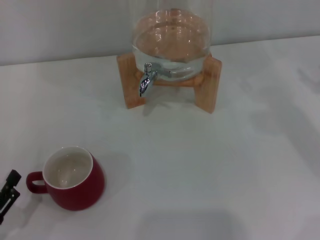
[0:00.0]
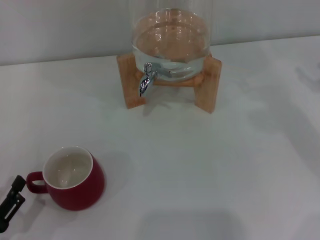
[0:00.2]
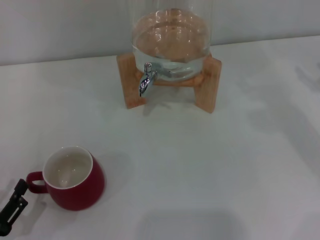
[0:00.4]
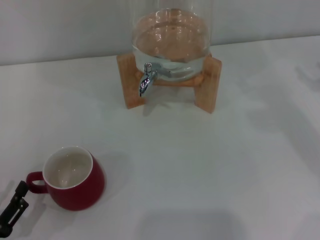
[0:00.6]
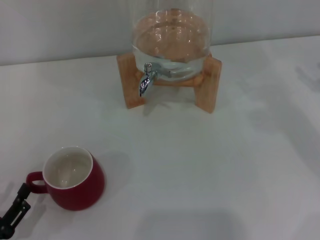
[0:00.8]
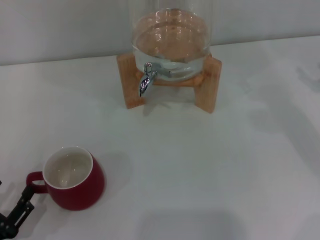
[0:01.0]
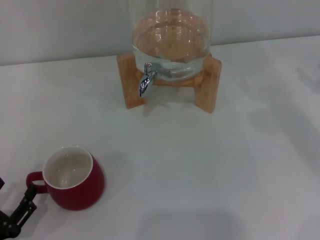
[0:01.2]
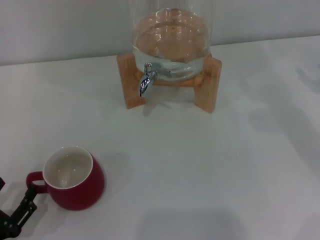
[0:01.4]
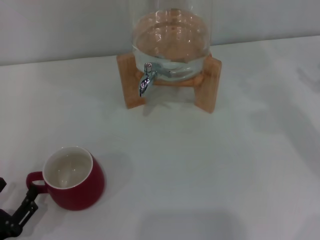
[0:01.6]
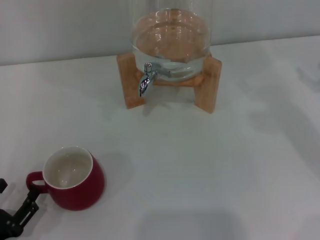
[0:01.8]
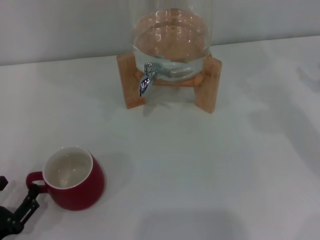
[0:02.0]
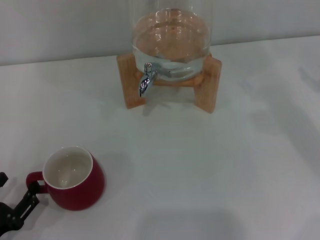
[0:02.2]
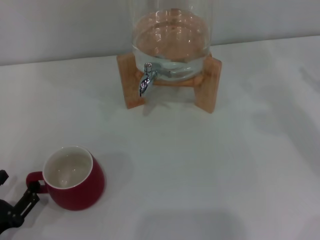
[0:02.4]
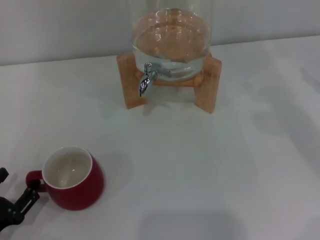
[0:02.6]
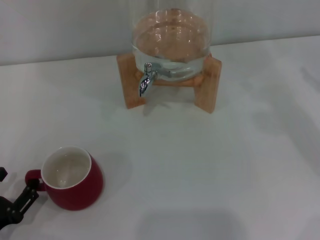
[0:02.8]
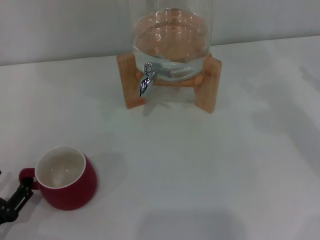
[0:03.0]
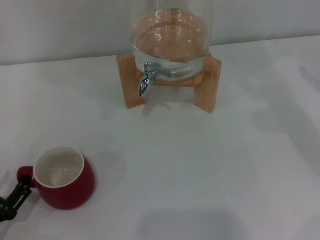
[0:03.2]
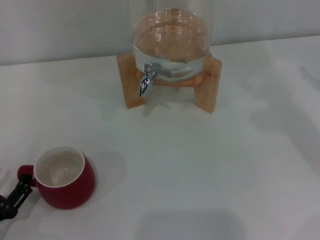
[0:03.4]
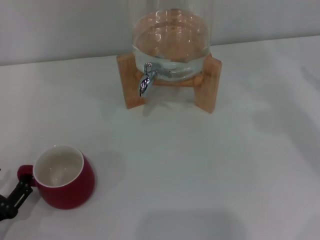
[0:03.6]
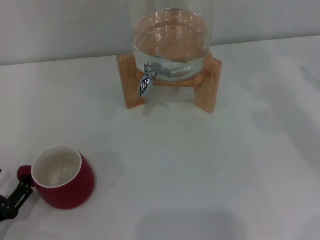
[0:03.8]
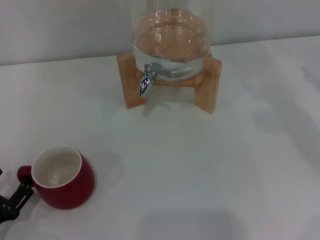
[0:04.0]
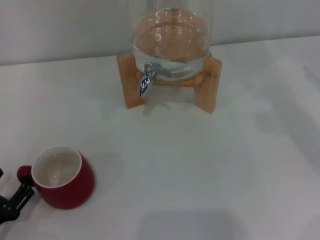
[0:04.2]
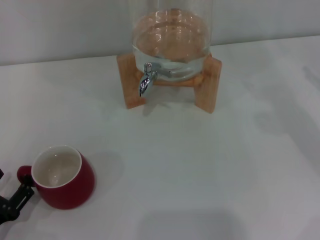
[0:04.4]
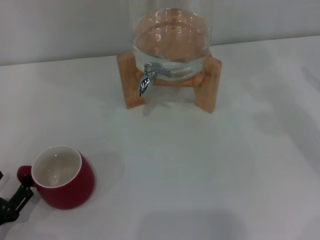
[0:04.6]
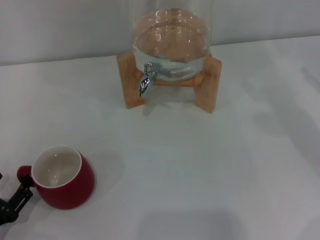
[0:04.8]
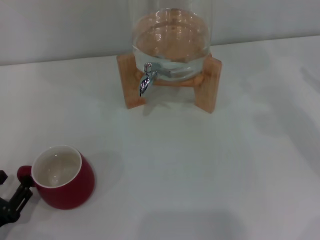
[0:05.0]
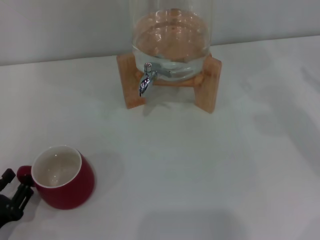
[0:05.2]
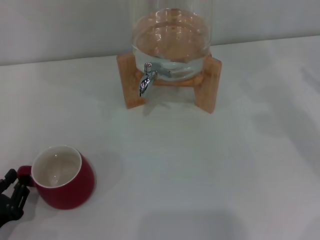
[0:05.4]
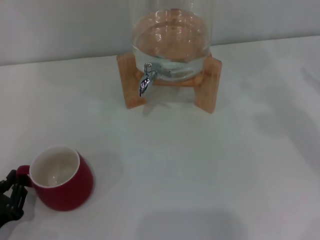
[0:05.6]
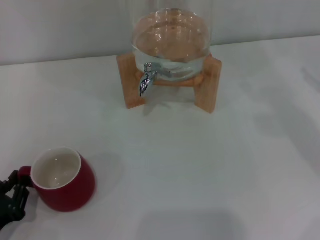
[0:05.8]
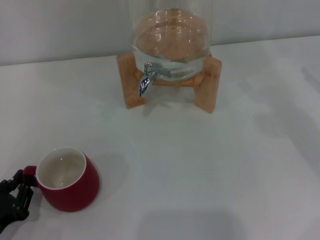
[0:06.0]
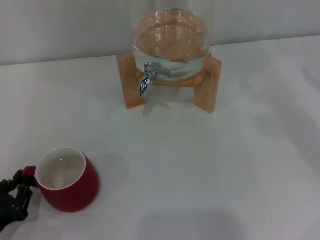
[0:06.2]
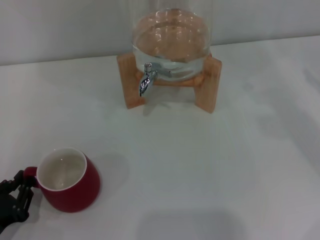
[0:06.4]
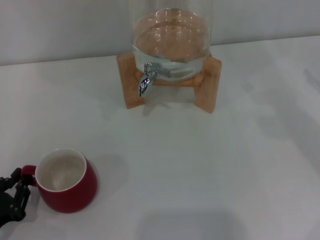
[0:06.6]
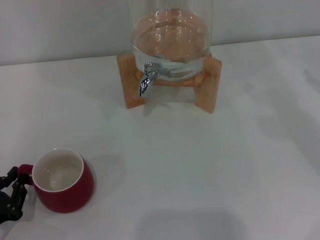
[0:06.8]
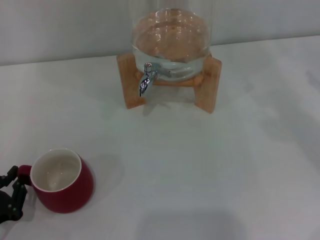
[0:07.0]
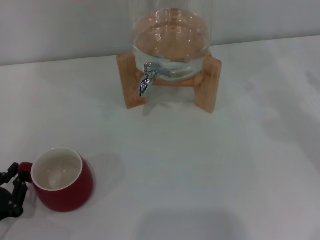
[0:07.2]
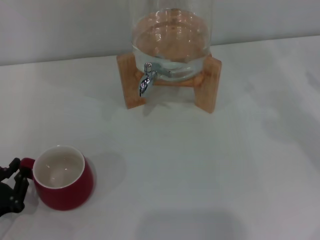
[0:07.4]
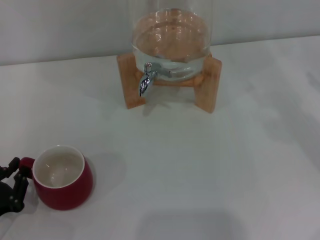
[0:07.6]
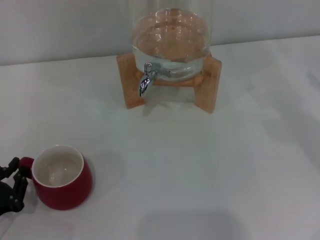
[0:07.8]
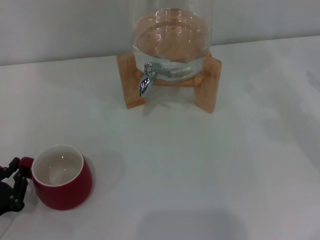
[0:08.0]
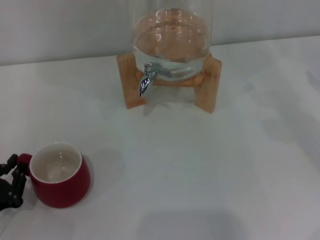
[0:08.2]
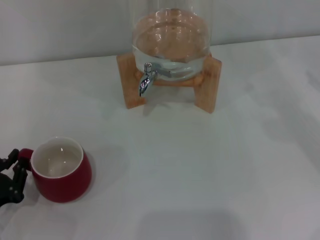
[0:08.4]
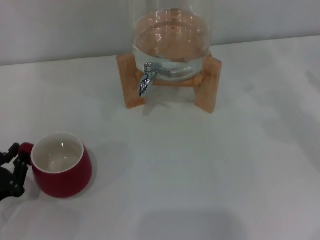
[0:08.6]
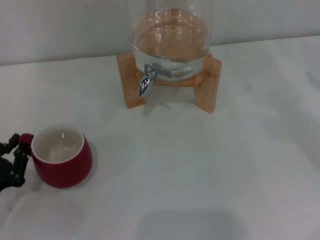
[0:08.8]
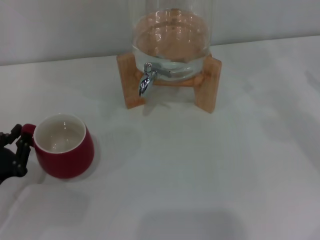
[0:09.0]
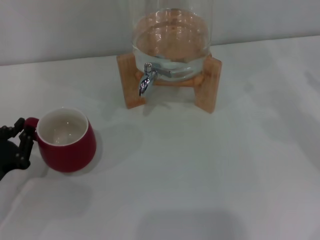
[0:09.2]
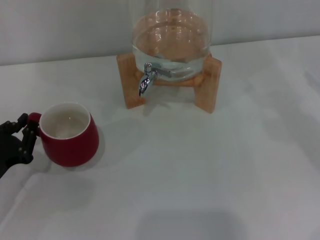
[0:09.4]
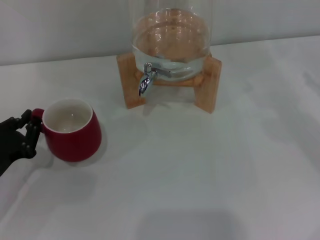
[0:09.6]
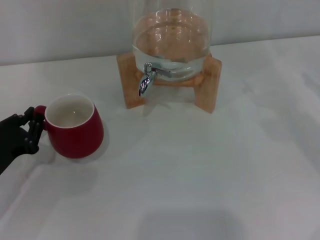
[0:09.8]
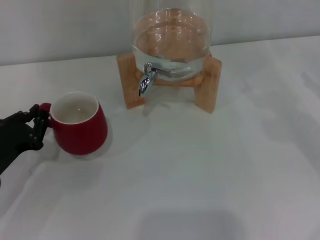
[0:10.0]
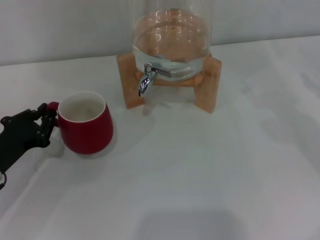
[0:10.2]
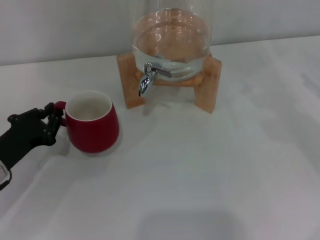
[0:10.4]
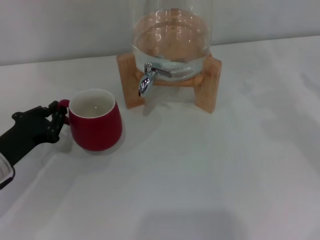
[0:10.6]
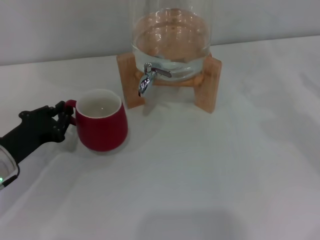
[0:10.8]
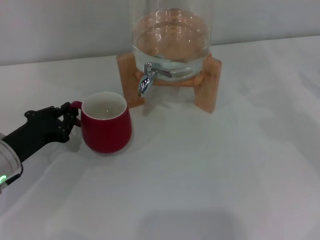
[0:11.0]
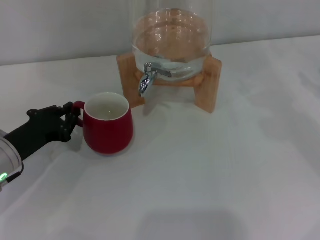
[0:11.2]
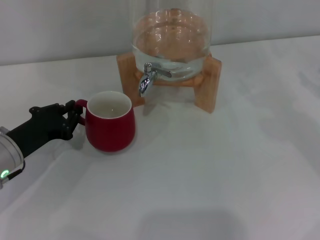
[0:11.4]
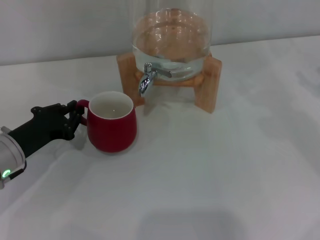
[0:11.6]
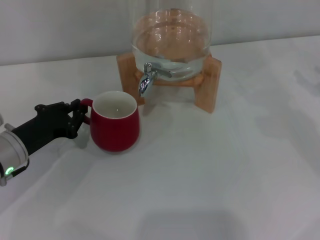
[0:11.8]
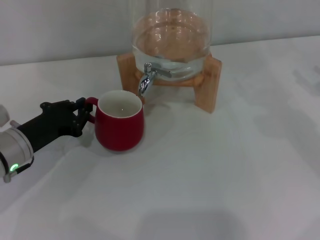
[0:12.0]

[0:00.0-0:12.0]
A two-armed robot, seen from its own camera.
Task of the whole recording: the left gripper pick up the red cup and place it horizontally under the faucet, the right gripper turn on the faucet to fill the cup, and then turn off the faucet.
0:00.0 to 0:03.0: There are only small adjustments of the grippers.
0:03.0 to 0:04.4: The two grippers keep their place.
0:04.4 to 0:06.0: The left gripper closes.
0:06.0 to 0:07.6: There are only small adjustments of the grippers.
0:07.6 to 0:09.0: There are only small adjustments of the grippers.
0:09.0 to 0:10.4: The left gripper shifts about 5 cm forward.
0:10.4 to 0:12.0: There are only small adjustments of the grippers.

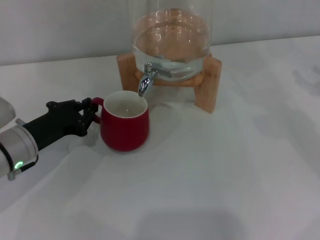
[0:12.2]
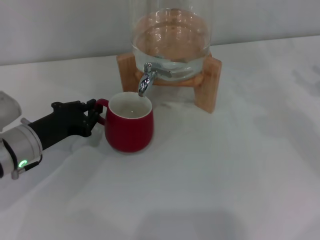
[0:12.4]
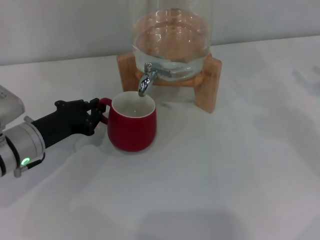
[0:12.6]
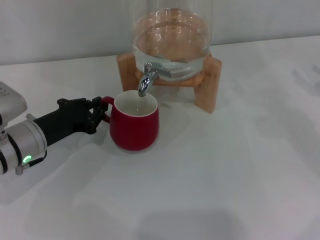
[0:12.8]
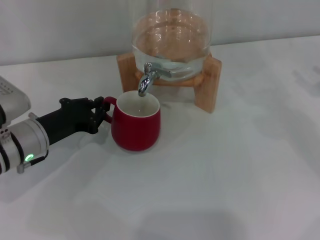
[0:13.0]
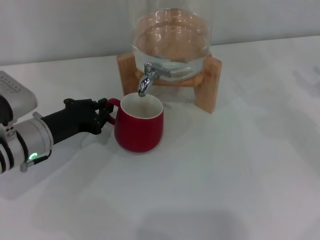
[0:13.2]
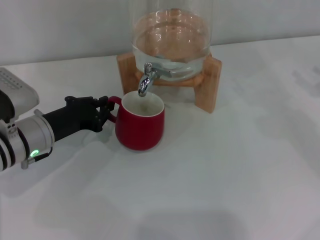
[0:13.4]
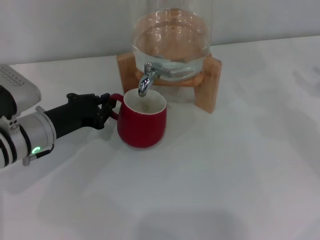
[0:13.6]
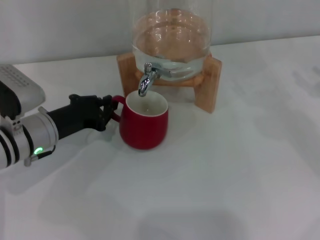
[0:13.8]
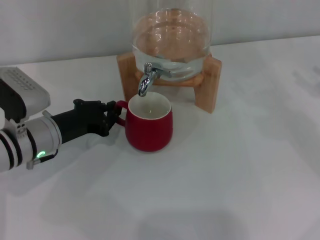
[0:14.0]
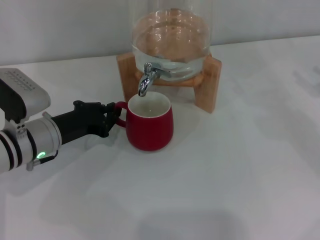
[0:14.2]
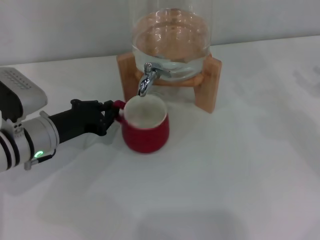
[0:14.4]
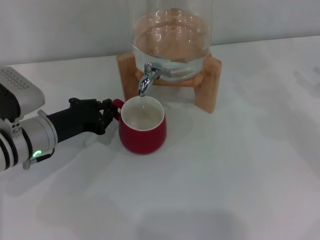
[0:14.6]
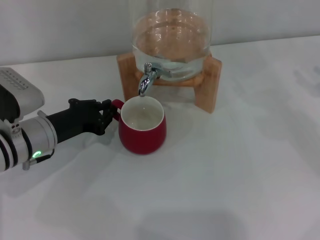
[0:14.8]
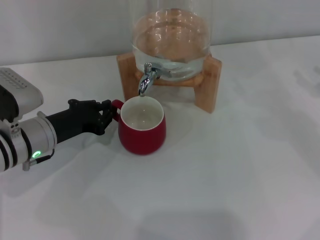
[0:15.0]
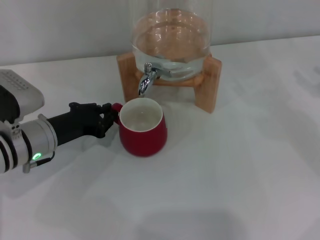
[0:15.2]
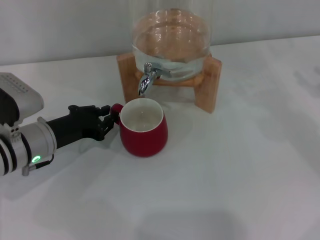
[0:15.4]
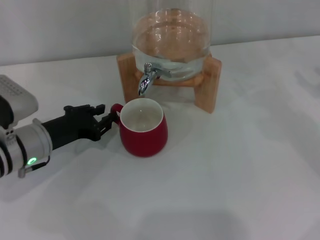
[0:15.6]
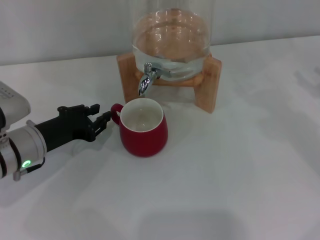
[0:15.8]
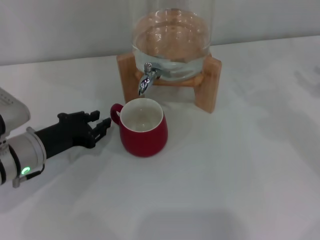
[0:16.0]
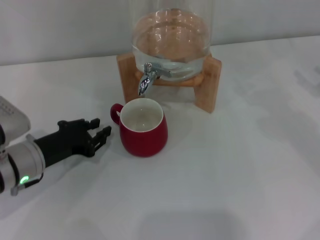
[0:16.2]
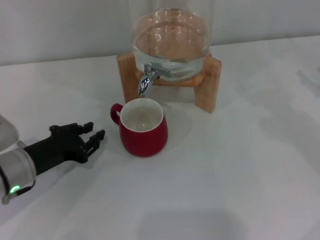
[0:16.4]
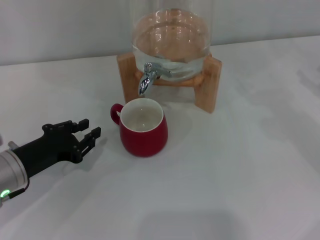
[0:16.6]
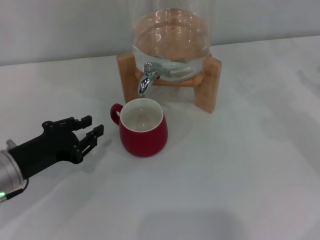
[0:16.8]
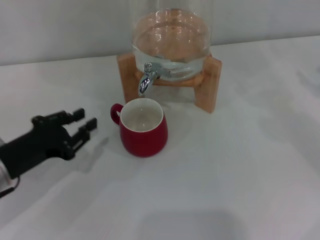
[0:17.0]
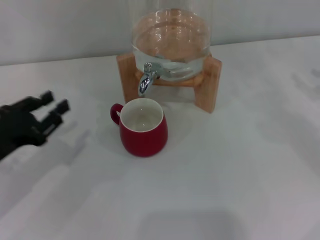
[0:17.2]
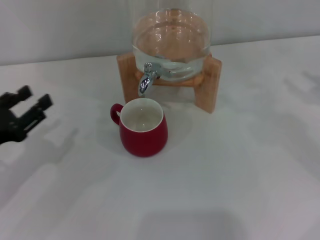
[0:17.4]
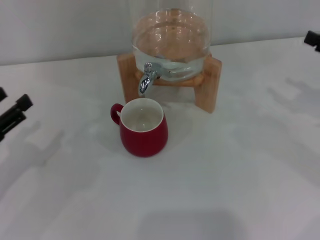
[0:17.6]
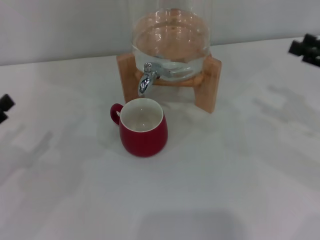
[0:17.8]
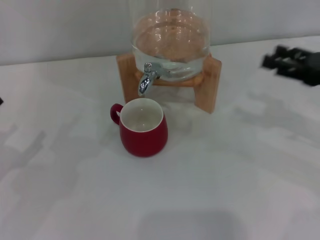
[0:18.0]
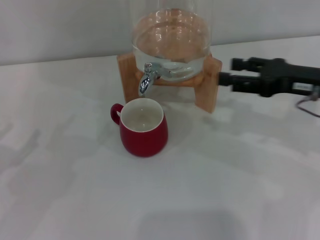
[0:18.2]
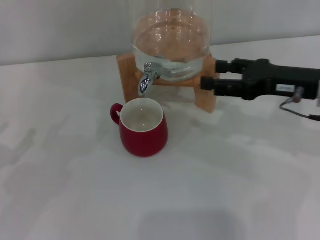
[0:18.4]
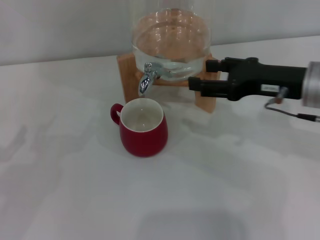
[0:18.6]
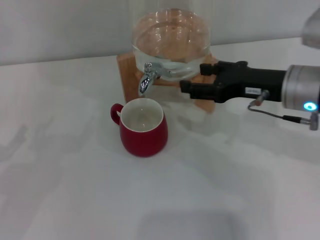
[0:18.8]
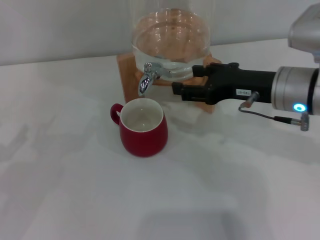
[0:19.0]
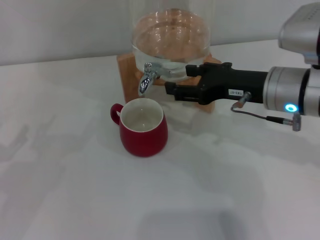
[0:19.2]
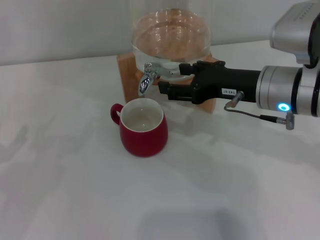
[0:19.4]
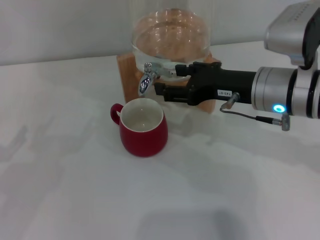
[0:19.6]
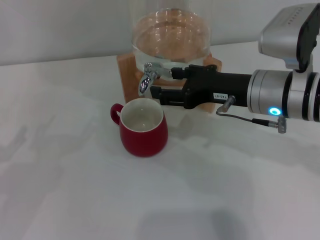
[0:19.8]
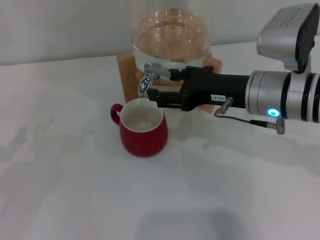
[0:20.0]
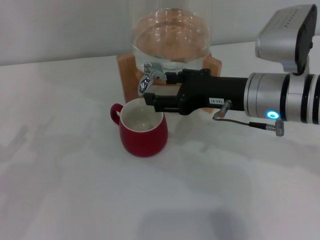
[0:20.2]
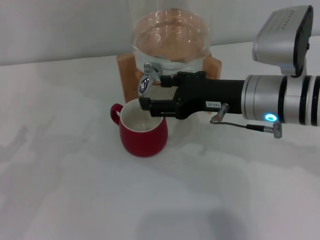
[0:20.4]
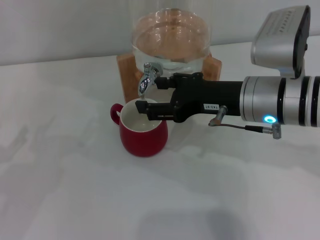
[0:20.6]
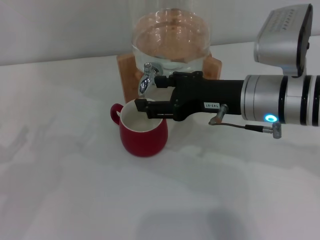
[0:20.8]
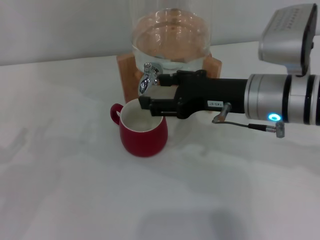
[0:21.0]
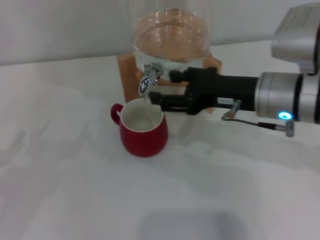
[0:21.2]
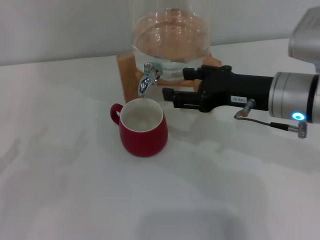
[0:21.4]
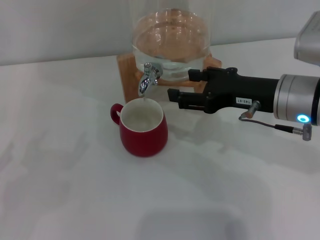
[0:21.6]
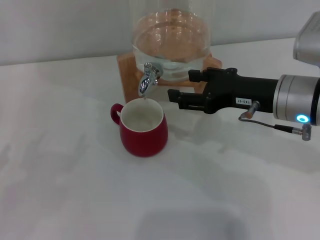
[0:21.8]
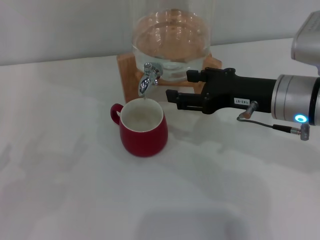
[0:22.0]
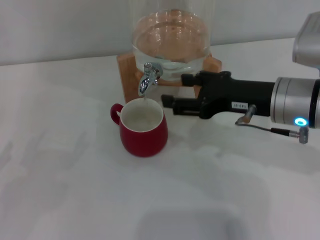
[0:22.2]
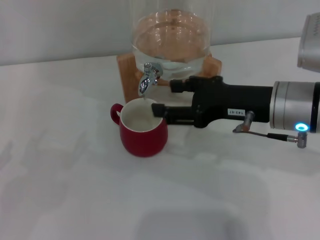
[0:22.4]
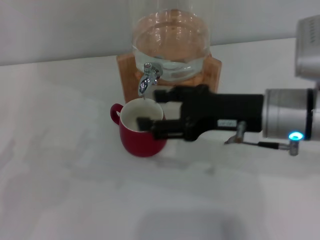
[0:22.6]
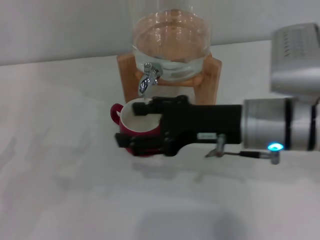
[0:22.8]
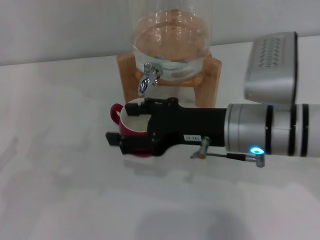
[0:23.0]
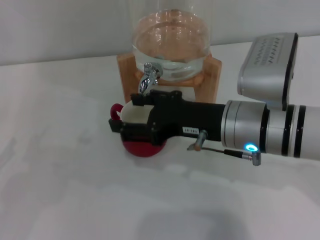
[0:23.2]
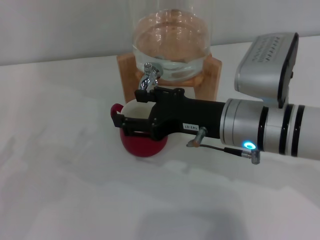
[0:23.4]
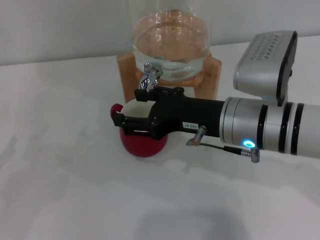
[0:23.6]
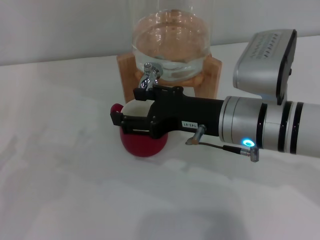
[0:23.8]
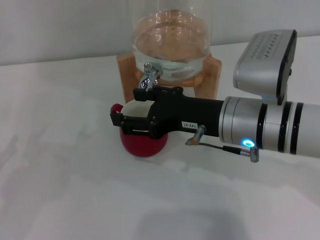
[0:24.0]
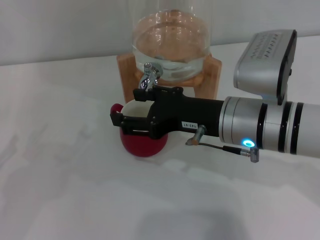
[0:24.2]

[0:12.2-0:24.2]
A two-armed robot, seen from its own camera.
Task of the whole recording: the left gripper pick up the red cup and place it horizontally under the faucet, the right gripper turn on the faucet to fill the cup, and then turn off the faucet.
Step, 0:12.2 to 0:16.6: Move the cup beneath the water dispenser nozzle with the left gripper.
0:12.2 to 0:13.8: The grippers stay close to where they were, moving slightly.
0:13.8 to 0:15.2: Both grippers stay put.
0:15.2 to 0:16.6: The left gripper shifts about 5 cm backward.
0:16.6 to 0:18.2: Both grippers move to the left, approximately 10 cm. The left gripper opens up.
0:18.2 to 0:19.8: The right gripper travels to the left by approximately 10 cm.
0:19.8 to 0:24.2: There are only small adjustments of the grippers.
